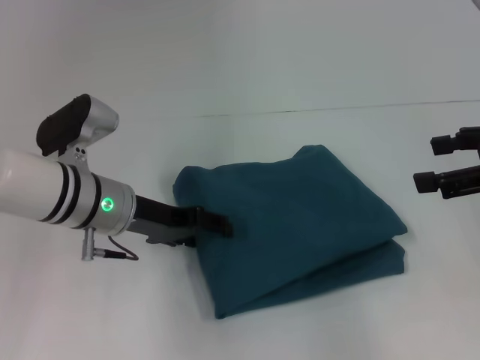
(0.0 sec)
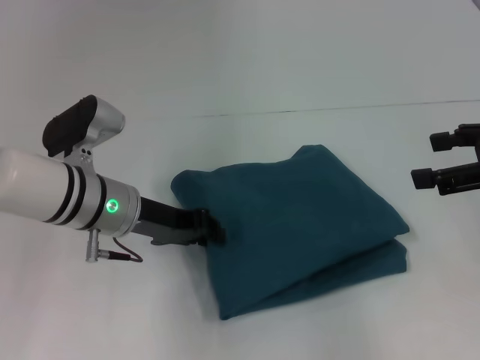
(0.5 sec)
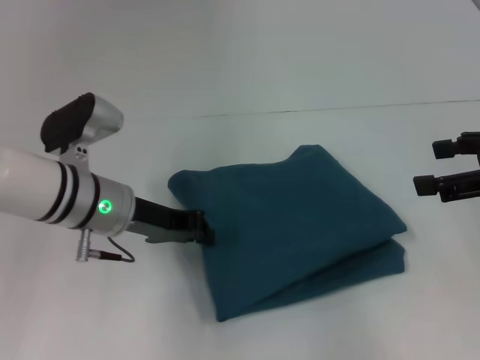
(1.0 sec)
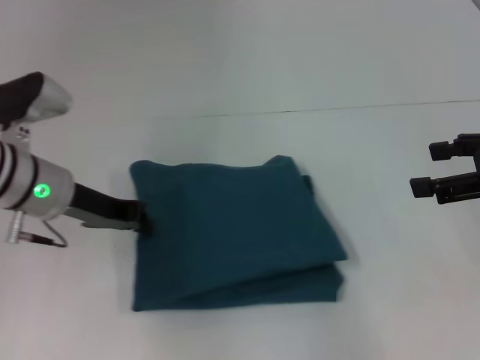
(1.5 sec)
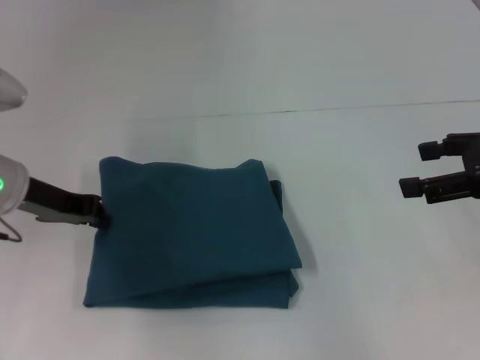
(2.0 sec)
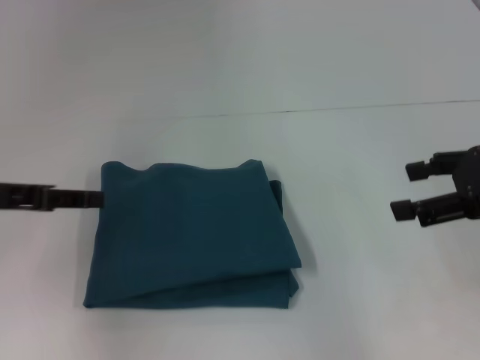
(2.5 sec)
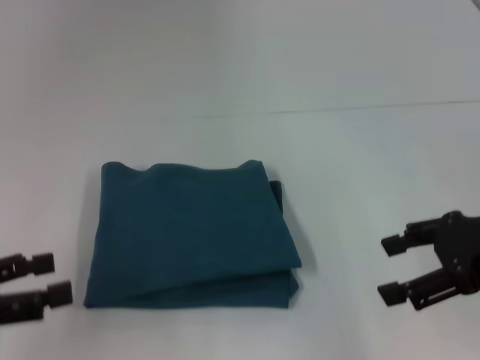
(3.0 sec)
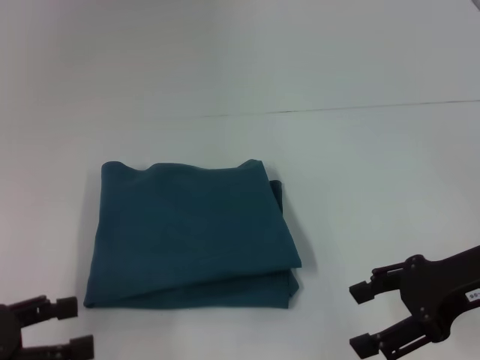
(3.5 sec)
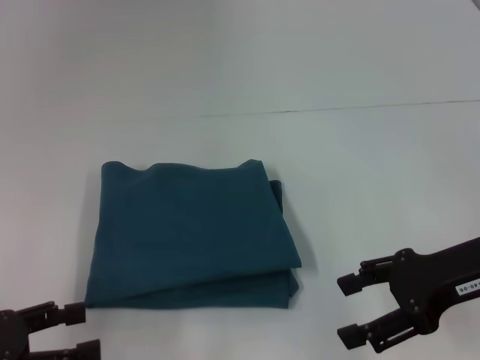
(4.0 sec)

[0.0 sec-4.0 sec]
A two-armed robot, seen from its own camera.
0.0 sec to 2.0 sec: The left gripper is displaced to the left by roughly 10 cm, and closes.
2.0 sec to 4.0 sec: The right gripper travels to the left and downward by some 10 cm; the left gripper travels backward by about 20 cm, and opens its fingers.

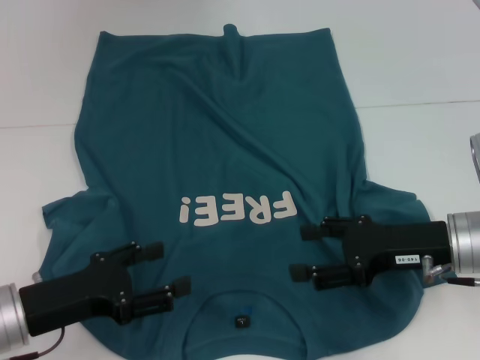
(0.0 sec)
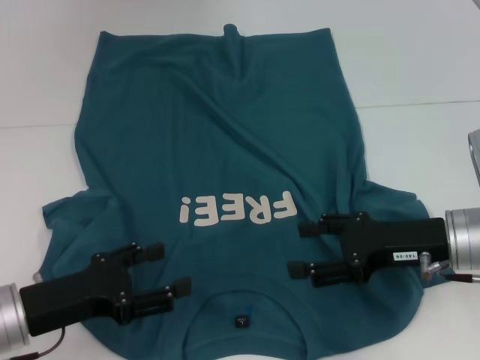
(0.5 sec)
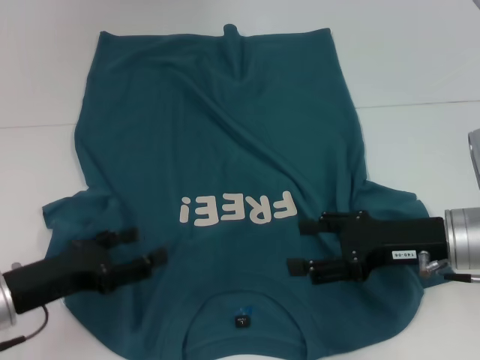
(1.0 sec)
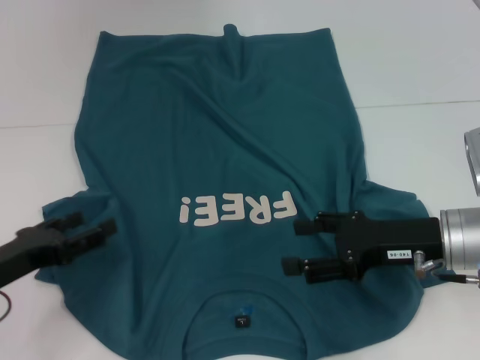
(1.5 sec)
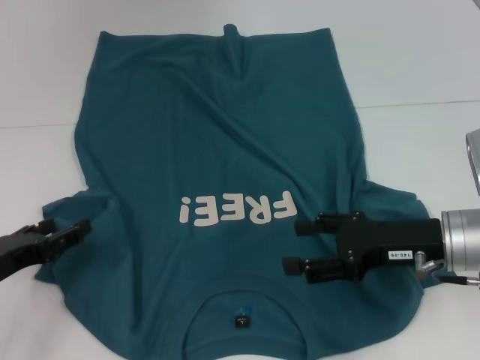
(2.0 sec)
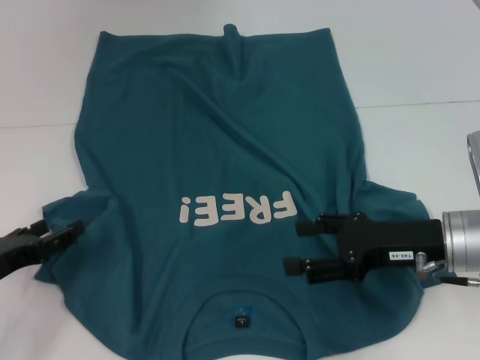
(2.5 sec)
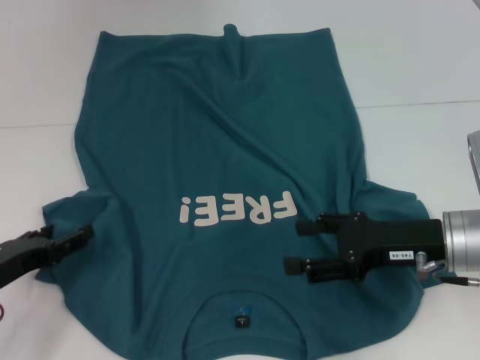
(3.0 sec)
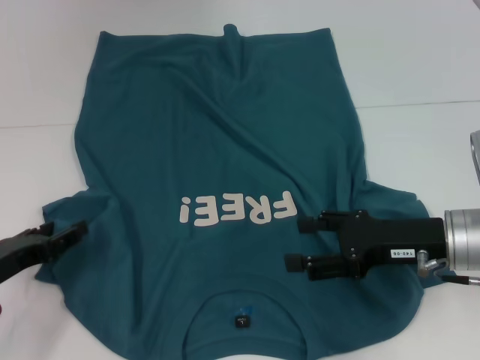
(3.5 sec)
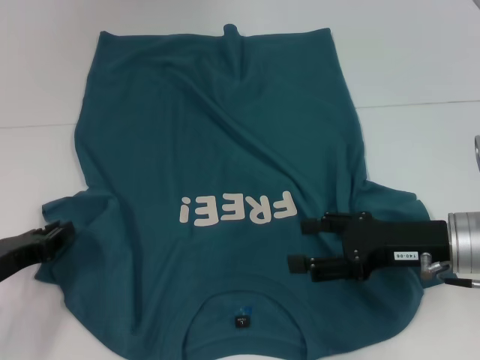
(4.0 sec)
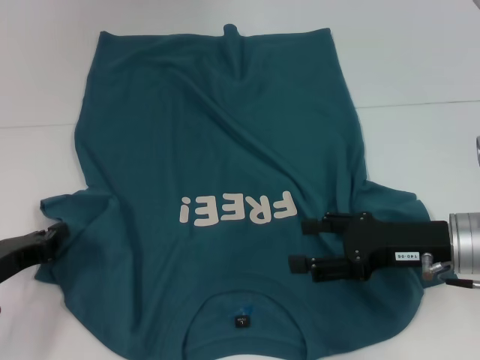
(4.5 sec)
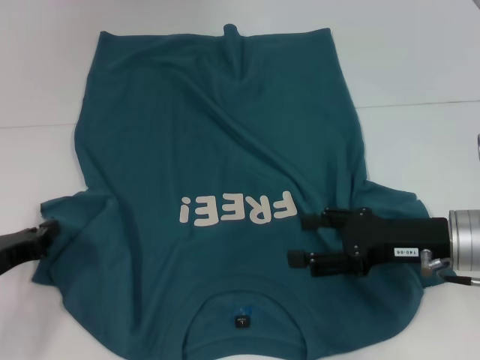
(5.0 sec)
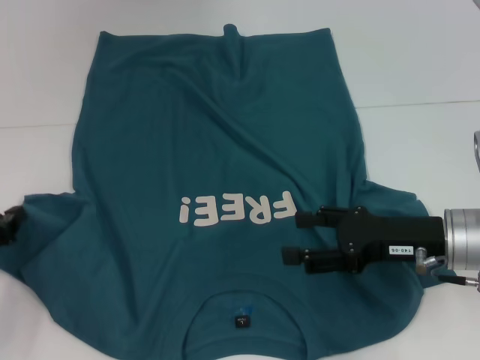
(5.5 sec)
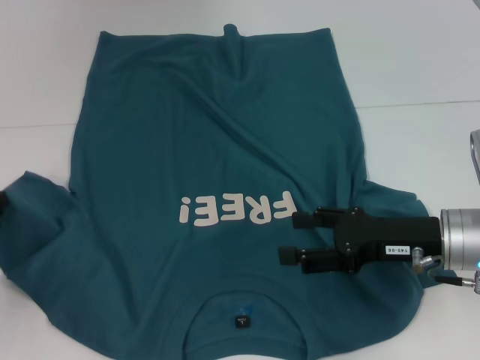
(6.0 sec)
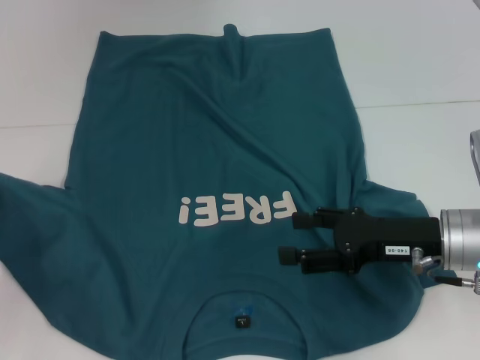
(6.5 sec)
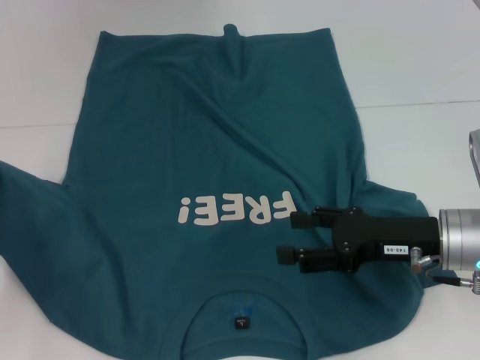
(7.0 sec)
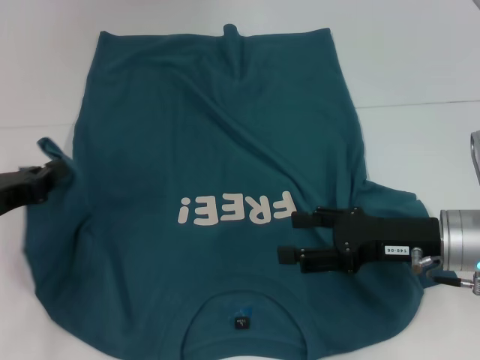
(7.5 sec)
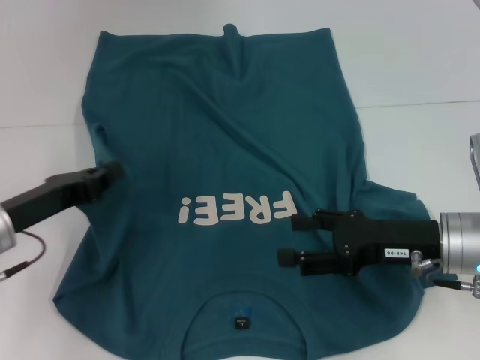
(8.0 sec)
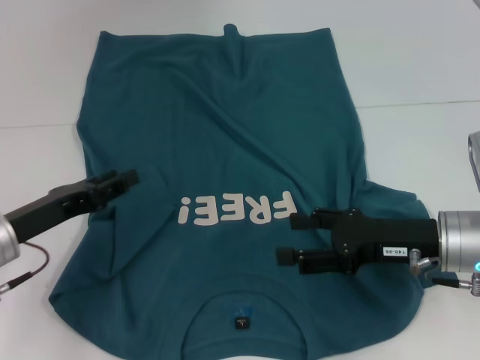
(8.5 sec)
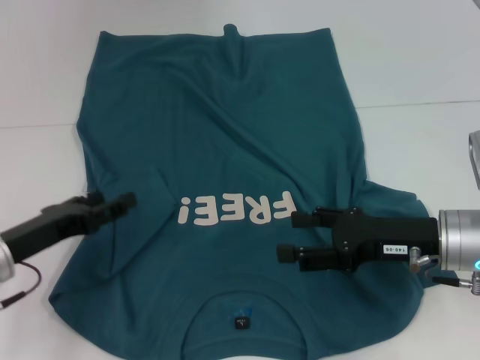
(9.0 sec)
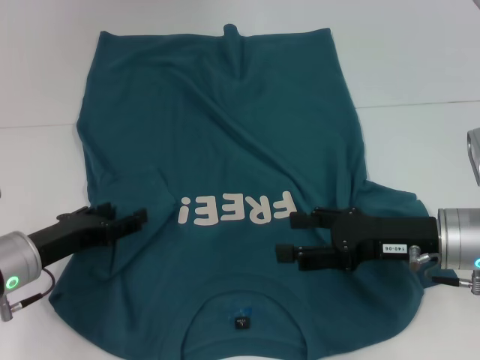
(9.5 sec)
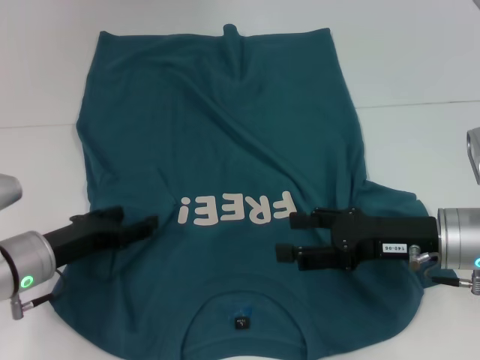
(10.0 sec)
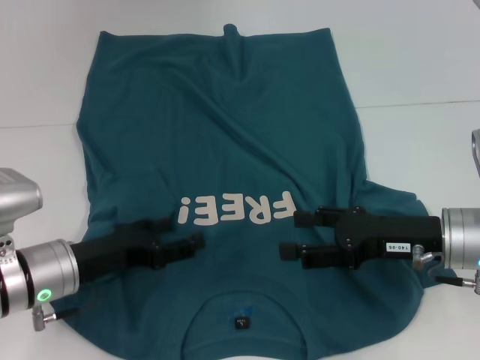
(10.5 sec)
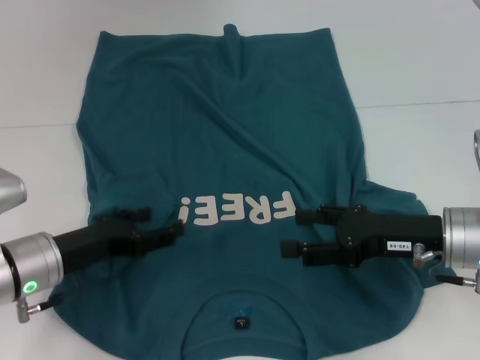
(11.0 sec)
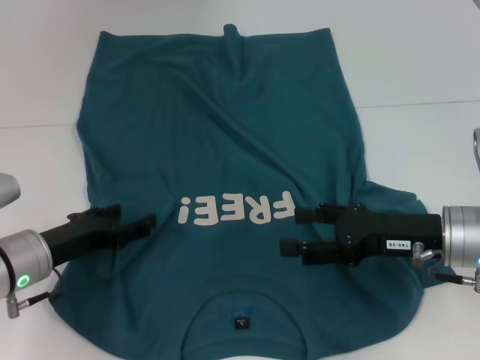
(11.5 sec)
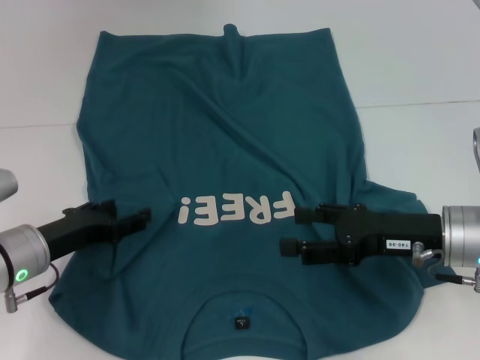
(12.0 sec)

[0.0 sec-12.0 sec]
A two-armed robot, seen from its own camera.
0.0 sec to 2.0 sec: The left gripper moves to the left, about 5 cm.
4.0 sec to 6.0 sec: The left gripper shifts by roughly 5 cm, and closes up.
6.0 sec to 8.0 sec: The left gripper shifts approximately 10 cm to the right.
8.0 sec to 10.0 sec: The left gripper changes place by about 5 cm, and opens its fingers.
10.0 sec to 12.0 sec: The grippers stay close to where they were, moving slightly.

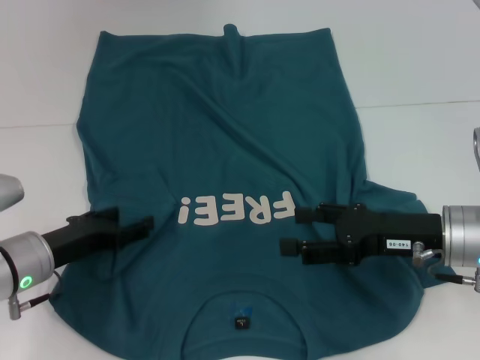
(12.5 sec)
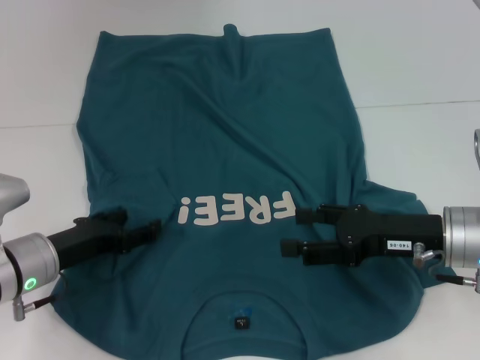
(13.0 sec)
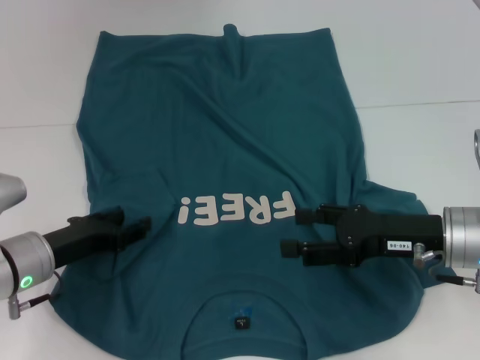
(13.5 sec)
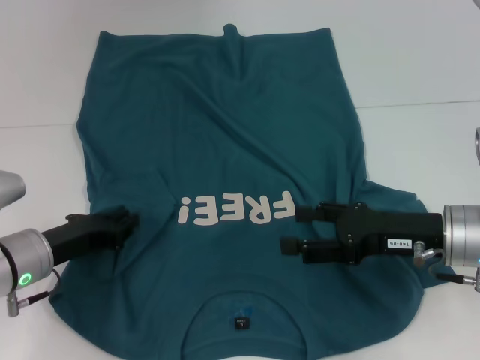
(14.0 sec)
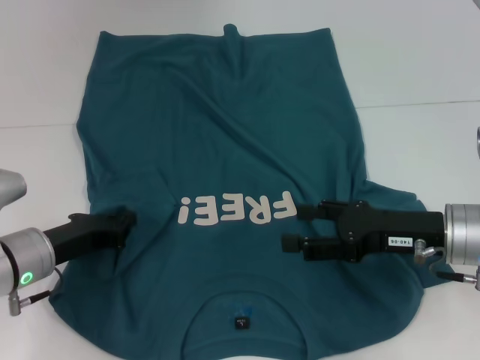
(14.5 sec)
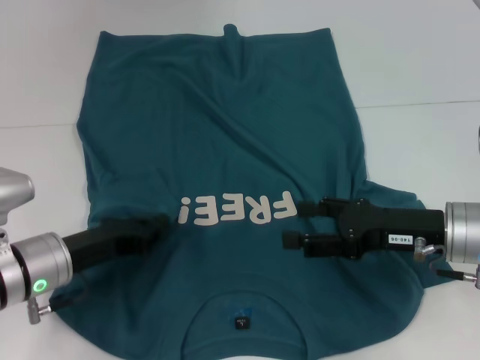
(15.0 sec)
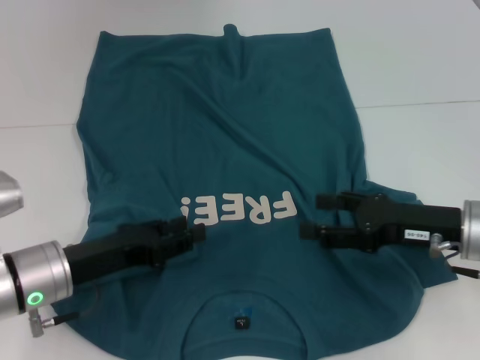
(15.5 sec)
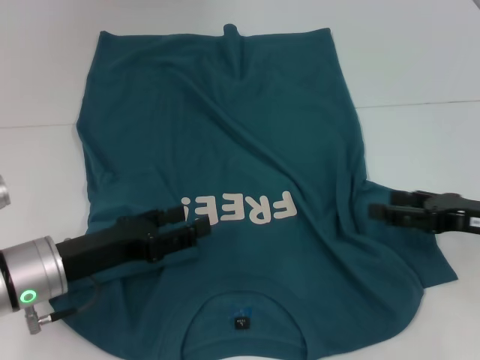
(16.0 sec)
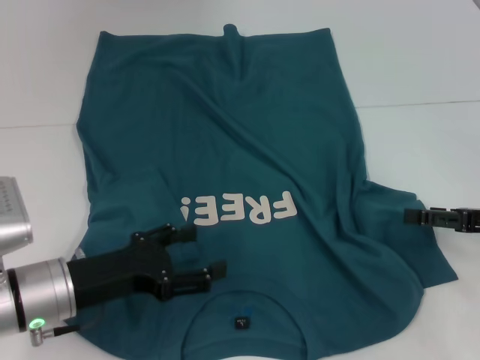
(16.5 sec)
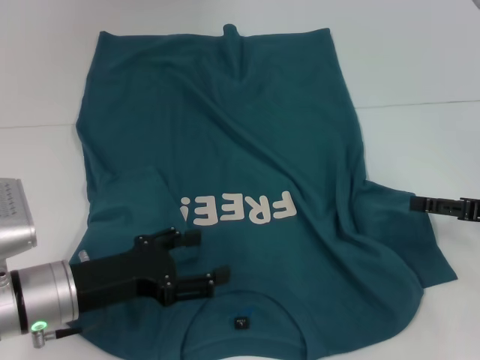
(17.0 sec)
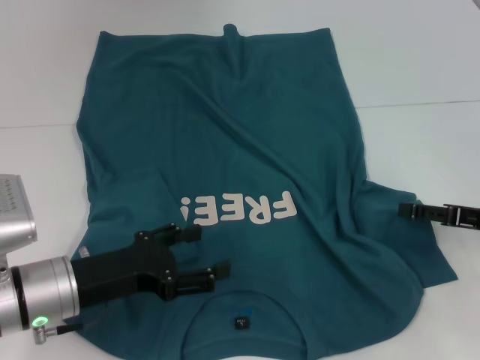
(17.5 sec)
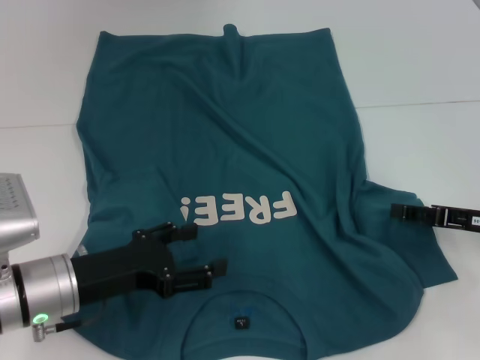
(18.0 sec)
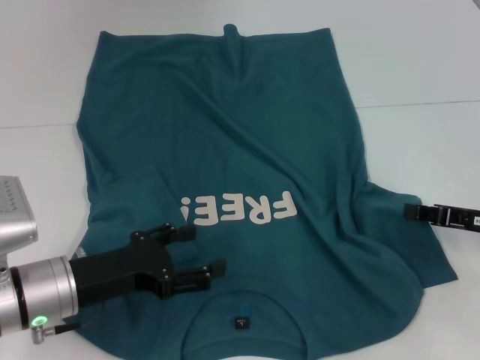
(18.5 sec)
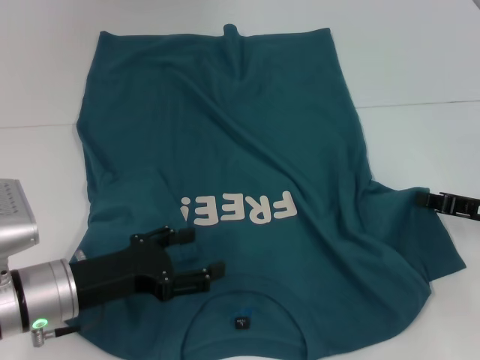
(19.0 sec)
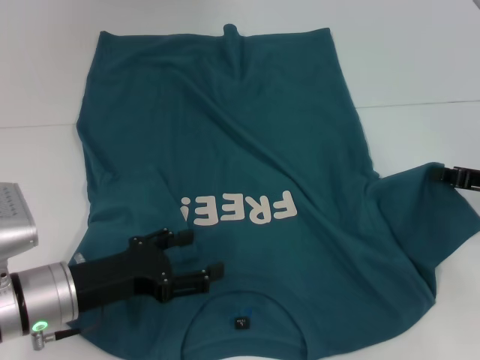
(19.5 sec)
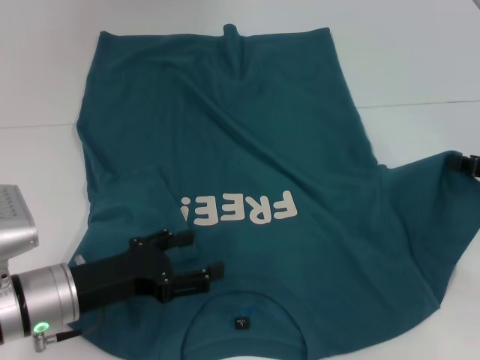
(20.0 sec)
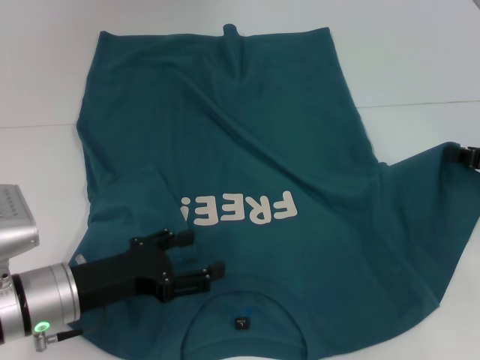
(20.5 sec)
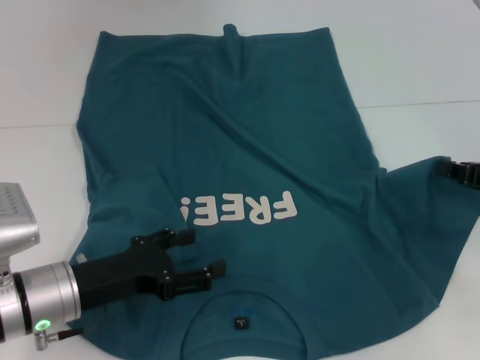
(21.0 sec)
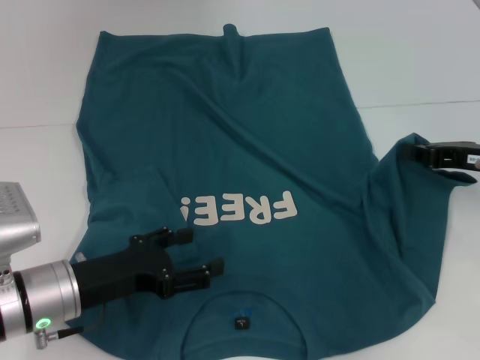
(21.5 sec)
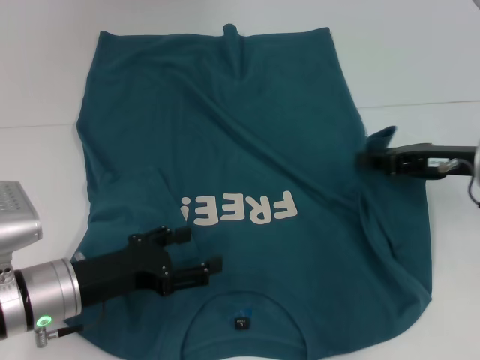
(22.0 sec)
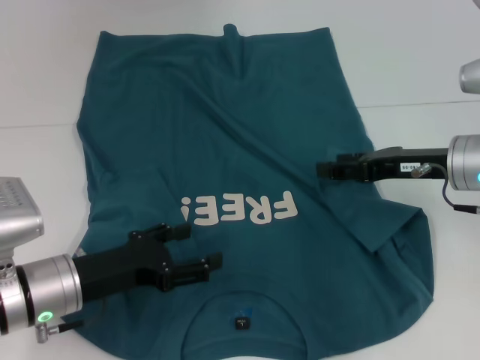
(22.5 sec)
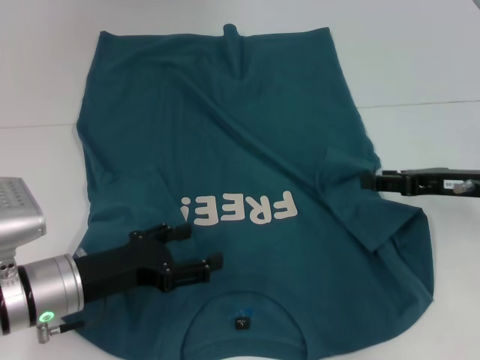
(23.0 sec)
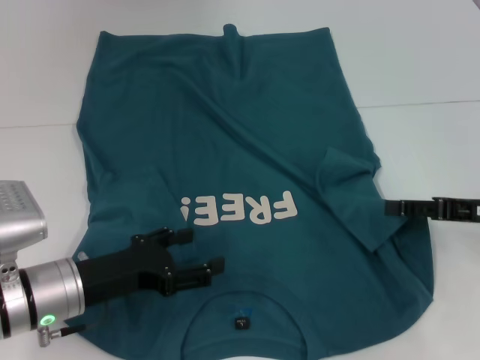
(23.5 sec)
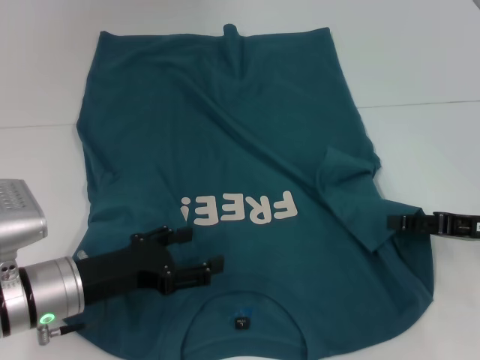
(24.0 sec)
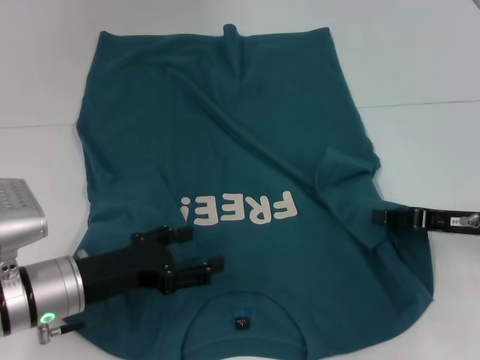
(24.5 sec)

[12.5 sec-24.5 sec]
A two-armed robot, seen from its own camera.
Step, 12.5 sec to 15.5 sec: Fold the bottom left sleeve with your left hand.
12.5 sec to 14.5 sec: The left gripper closes.
14.5 sec to 16.5 sec: The right gripper heads to the right, covering some 10 cm. Meanwhile the left gripper moves about 5 cm, and opens.
16.5 sec to 18.5 sec: The right gripper closes.
18.5 sec to 20.5 sec: The right gripper changes place by about 5 cm, and closes.
20.5 sec to 22.5 sec: The right gripper heads to the left, covering roughly 10 cm, and opens up.
22.5 sec to 24.5 sec: The right gripper is displaced to the right by about 5 cm.
